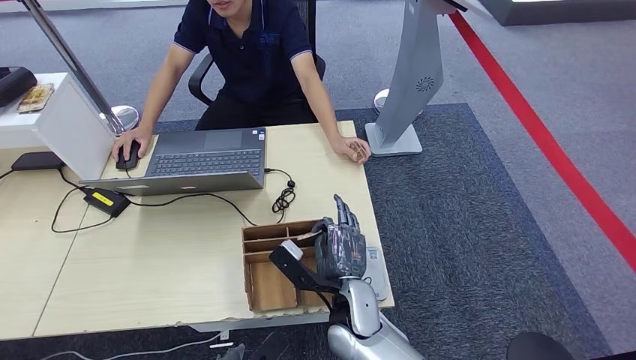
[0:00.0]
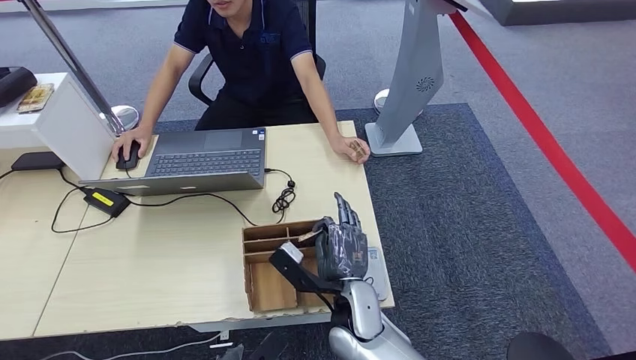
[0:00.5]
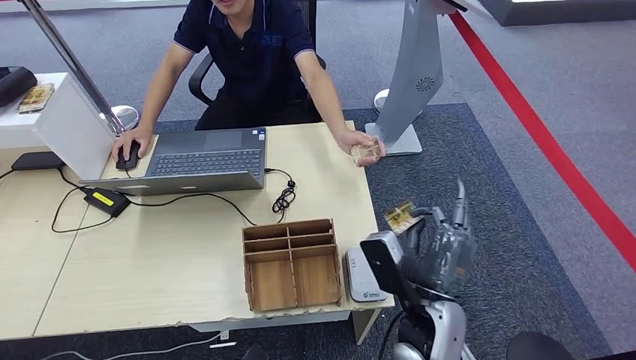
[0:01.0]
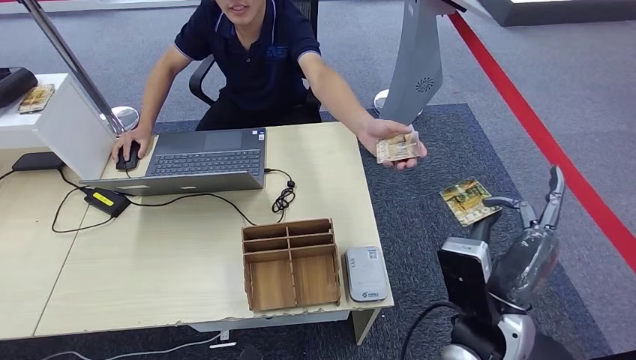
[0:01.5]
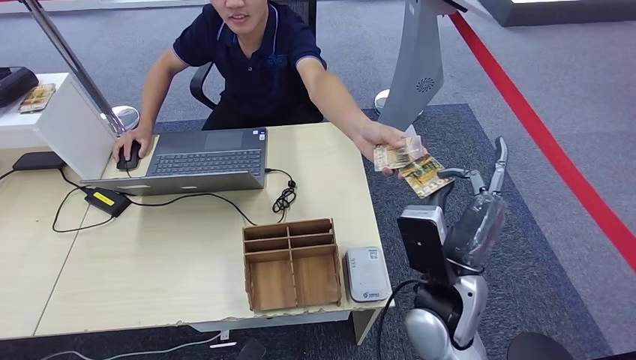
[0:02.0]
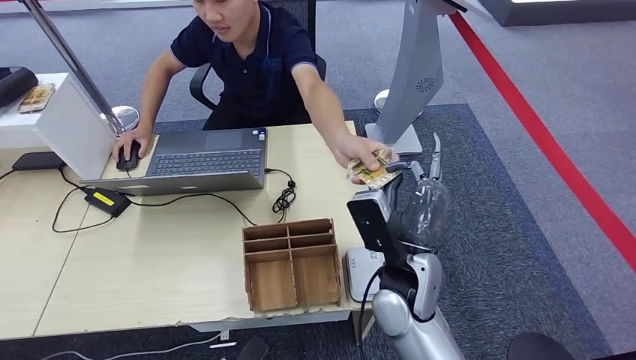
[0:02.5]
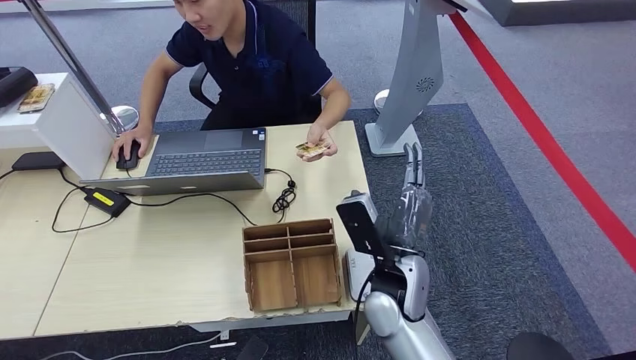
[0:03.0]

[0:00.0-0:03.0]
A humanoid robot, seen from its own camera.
Step, 0:01.0 to 0:03.0: Hand the room key to the person.
0:00.0 to 0:01.5: The right hand goes about 20 cm to the right, upward and backward, while the left hand ends up approximately 5 cm from where it was.
0:01.5 to 0:03.0: The right hand goes some 10 cm to the left and forward.
